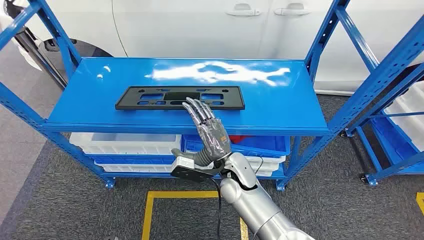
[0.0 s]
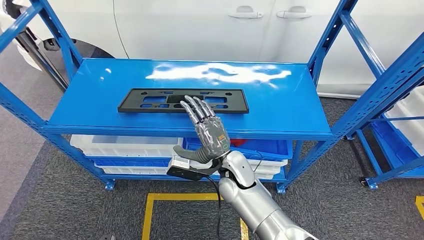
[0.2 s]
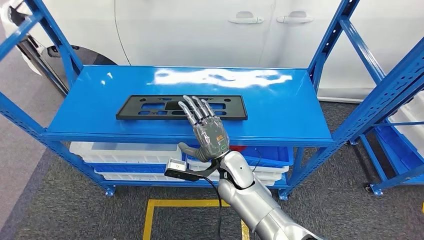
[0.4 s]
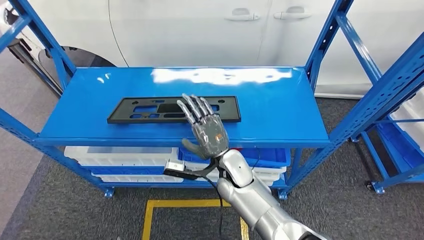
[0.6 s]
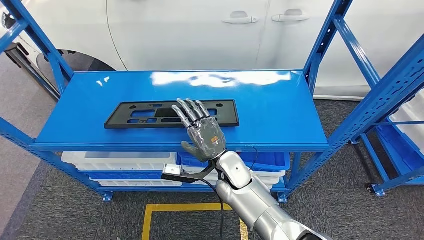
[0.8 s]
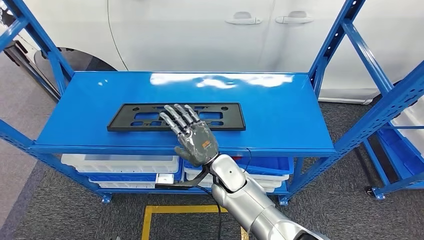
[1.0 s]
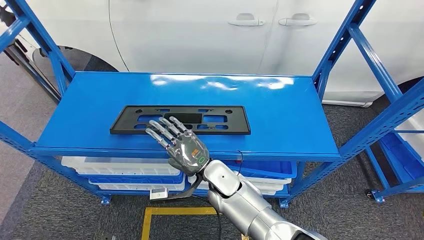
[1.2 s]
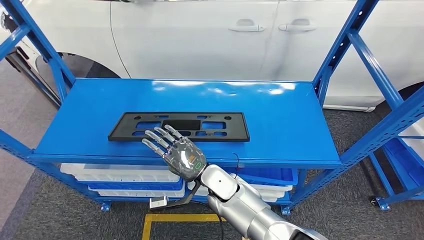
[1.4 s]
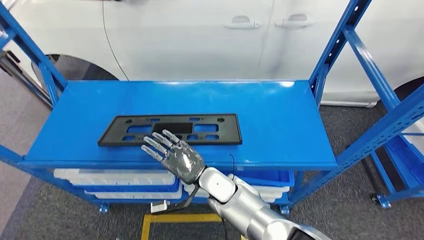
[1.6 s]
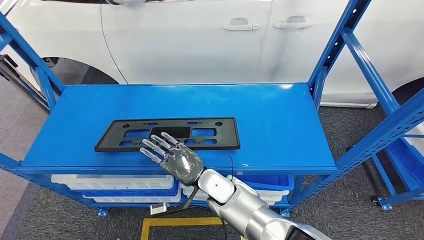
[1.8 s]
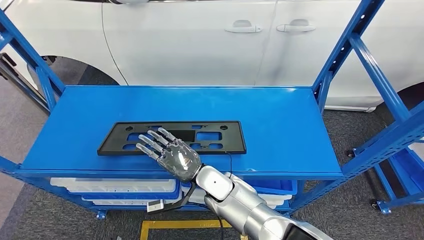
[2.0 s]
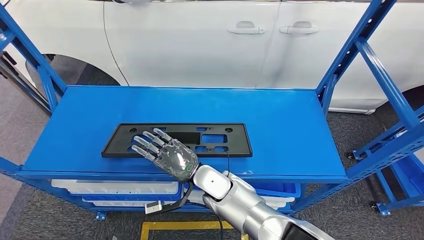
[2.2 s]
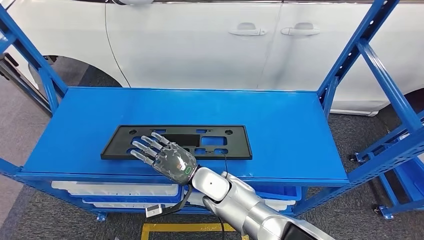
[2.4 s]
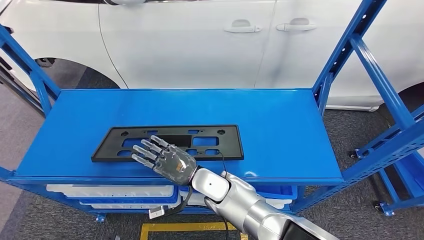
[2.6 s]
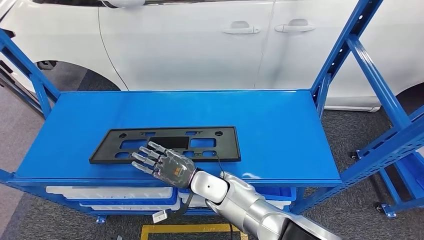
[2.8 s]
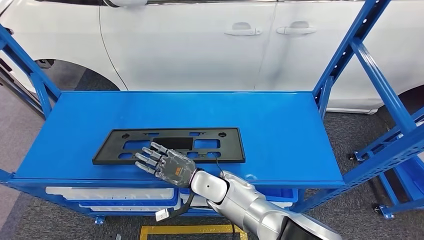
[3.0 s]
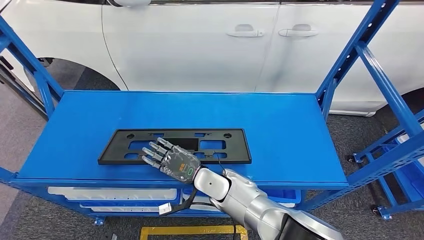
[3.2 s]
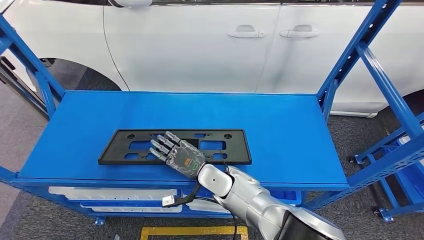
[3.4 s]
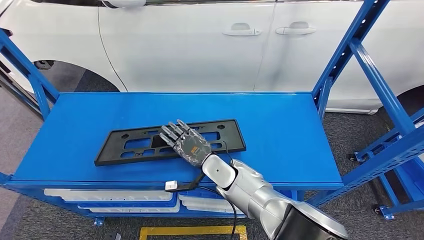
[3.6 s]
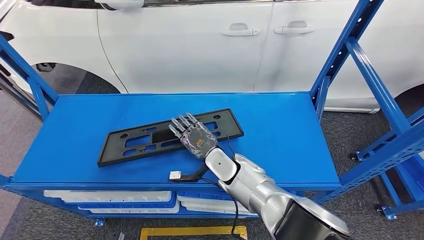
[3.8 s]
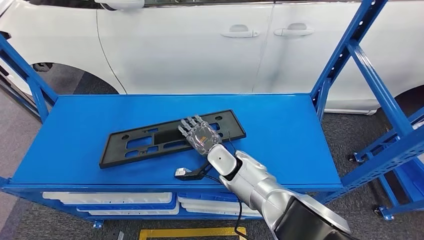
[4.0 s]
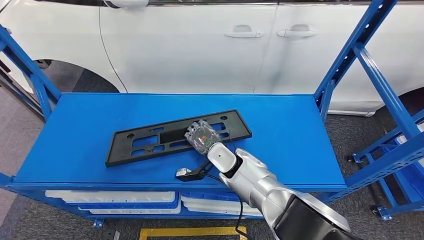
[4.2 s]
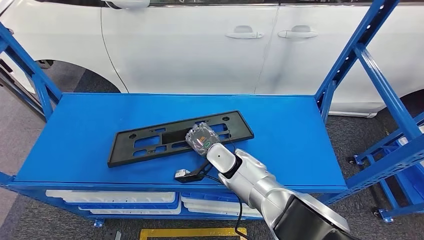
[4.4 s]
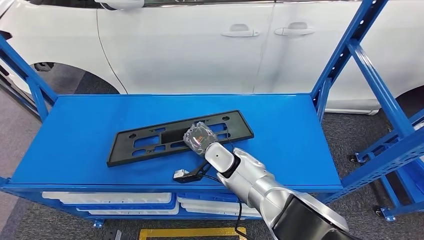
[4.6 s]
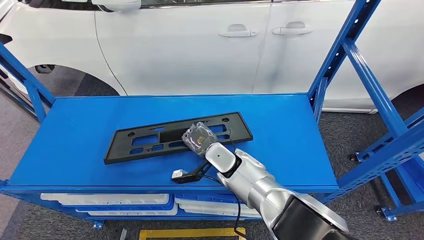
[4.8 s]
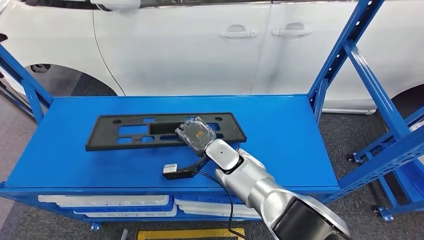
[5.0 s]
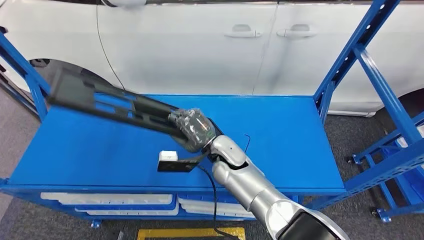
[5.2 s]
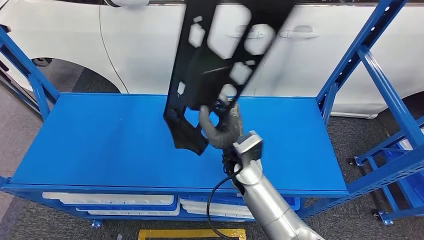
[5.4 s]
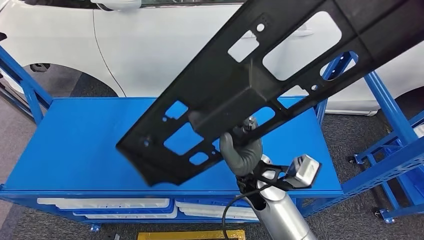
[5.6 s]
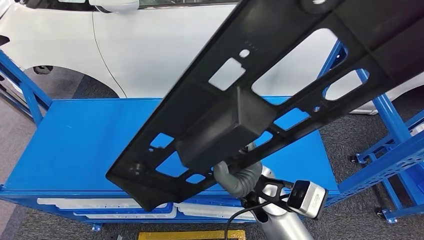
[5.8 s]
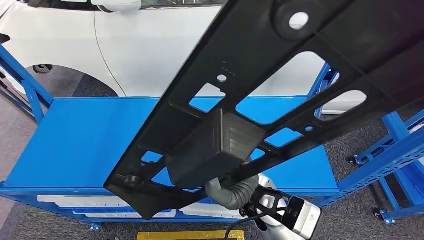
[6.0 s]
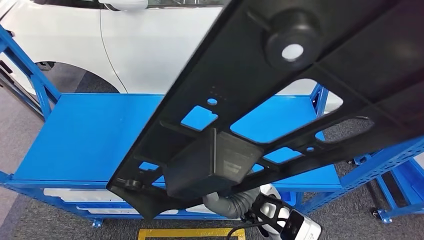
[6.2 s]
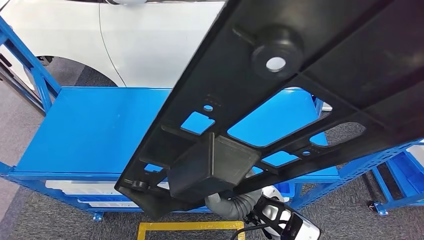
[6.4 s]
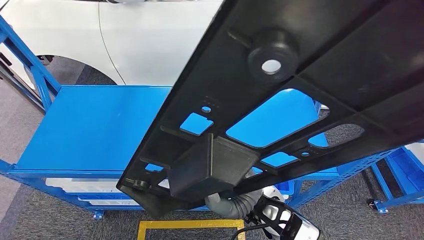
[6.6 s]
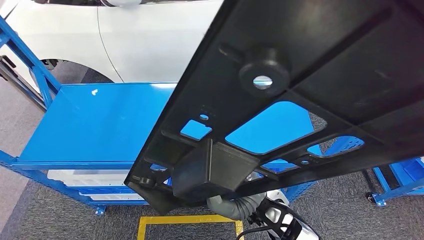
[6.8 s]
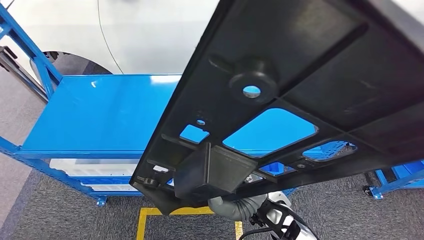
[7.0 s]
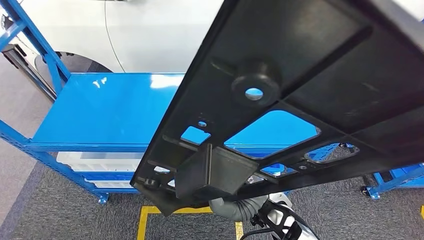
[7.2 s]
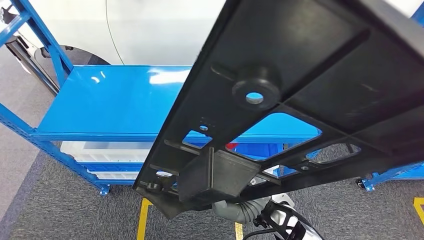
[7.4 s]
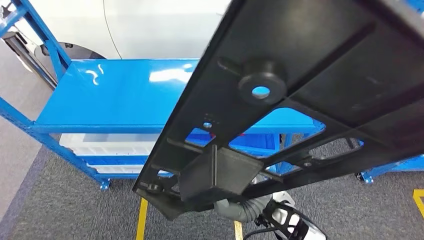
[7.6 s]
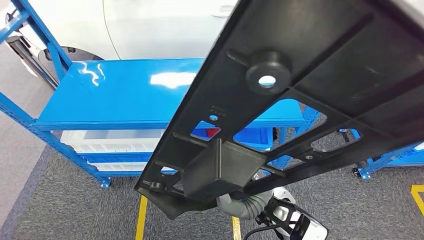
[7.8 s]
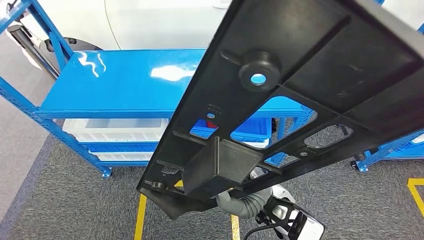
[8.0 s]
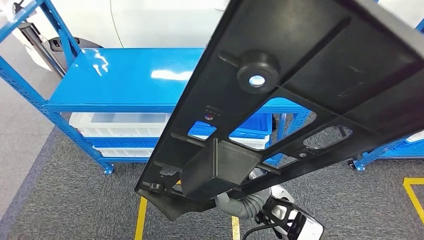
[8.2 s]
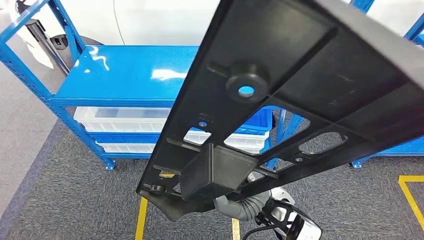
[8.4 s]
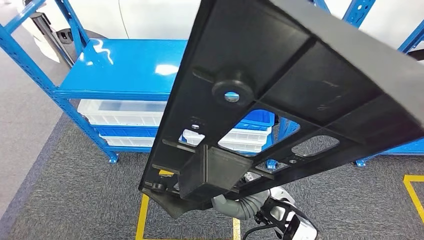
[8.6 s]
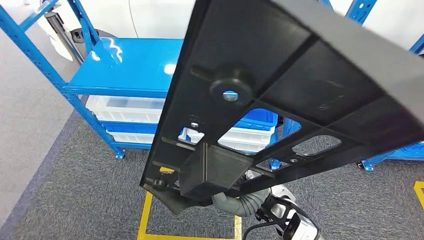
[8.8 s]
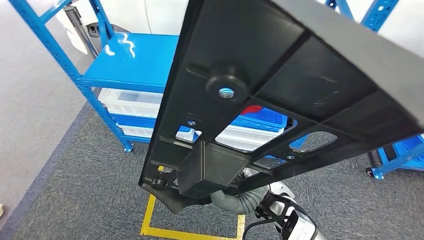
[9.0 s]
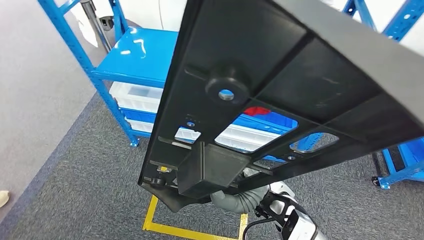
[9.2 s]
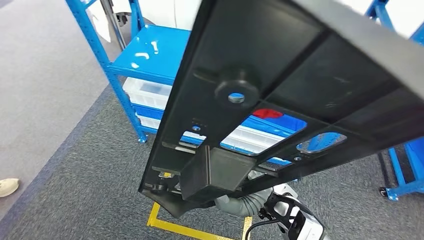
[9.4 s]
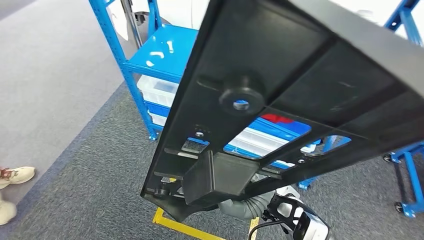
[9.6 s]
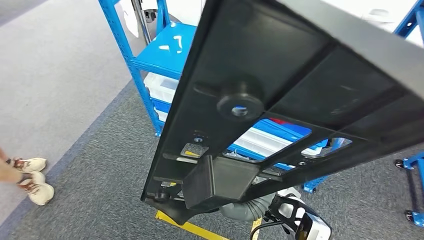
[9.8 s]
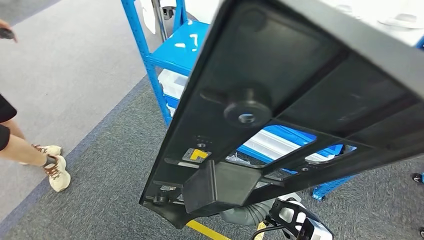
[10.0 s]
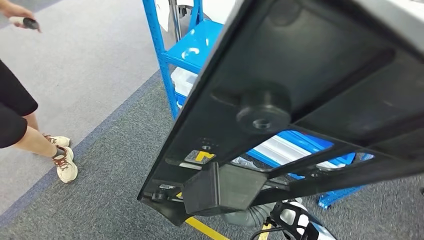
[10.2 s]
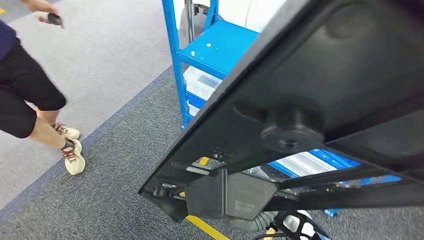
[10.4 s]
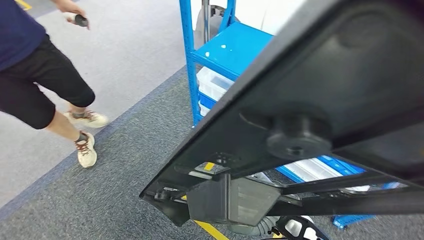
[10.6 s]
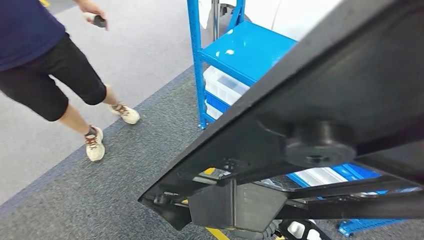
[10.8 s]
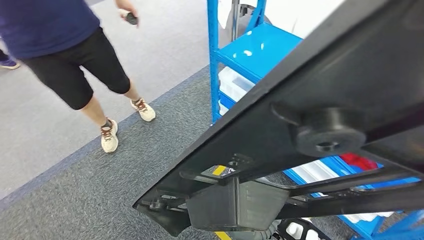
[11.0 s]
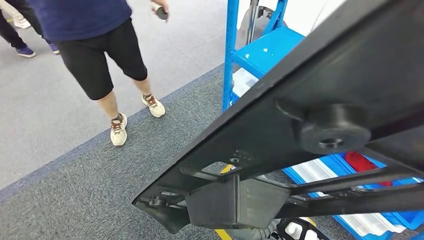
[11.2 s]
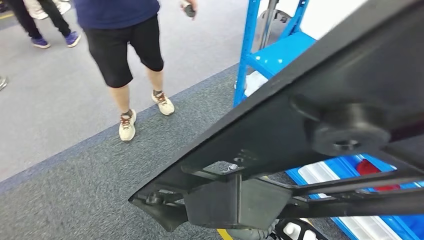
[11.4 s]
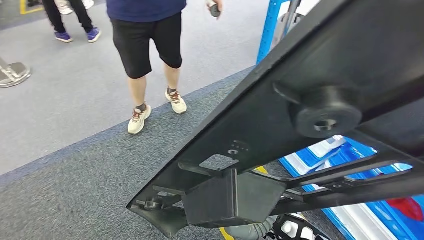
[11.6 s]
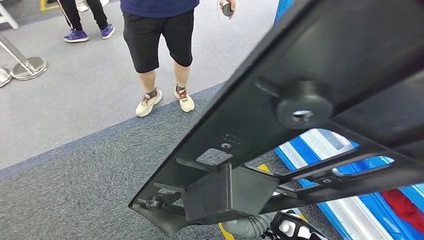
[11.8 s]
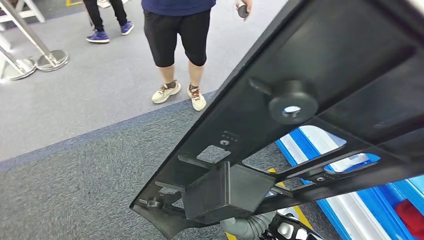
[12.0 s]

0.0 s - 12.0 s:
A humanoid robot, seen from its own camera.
Step, 0.0 s - 6.6 s: Pick up the large material from the shelf.

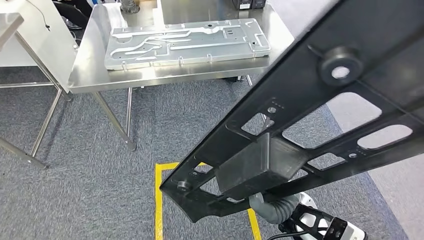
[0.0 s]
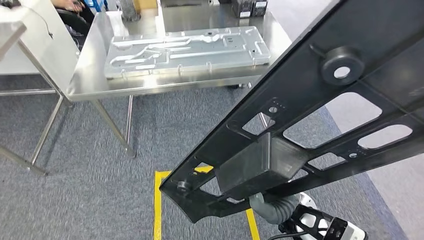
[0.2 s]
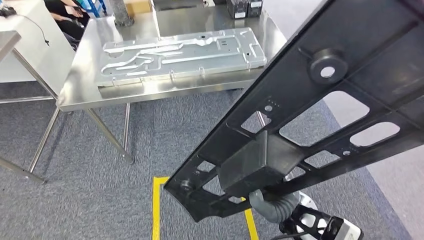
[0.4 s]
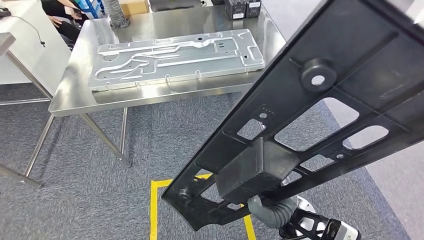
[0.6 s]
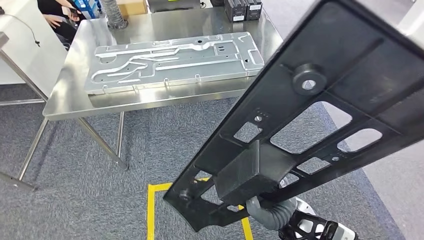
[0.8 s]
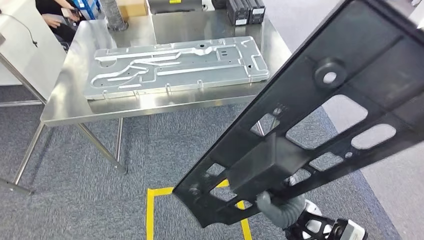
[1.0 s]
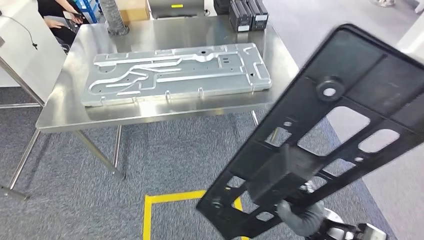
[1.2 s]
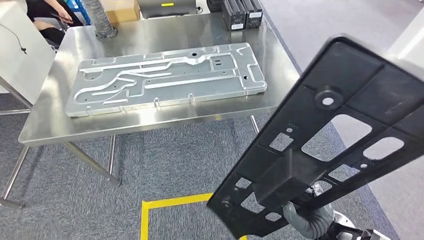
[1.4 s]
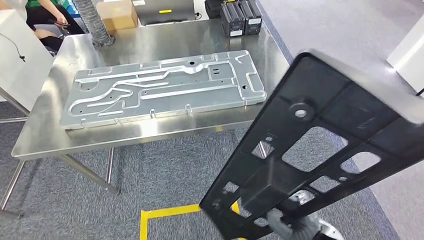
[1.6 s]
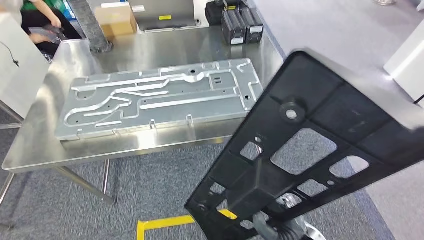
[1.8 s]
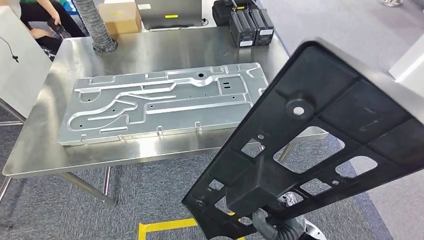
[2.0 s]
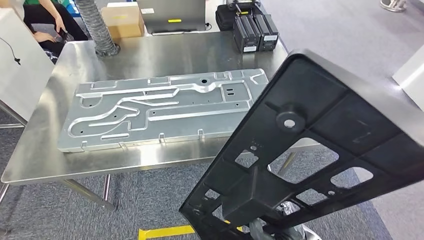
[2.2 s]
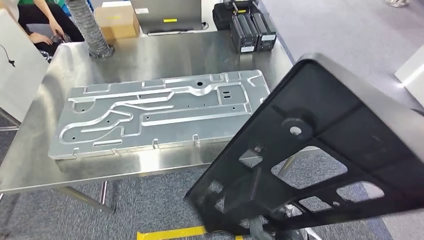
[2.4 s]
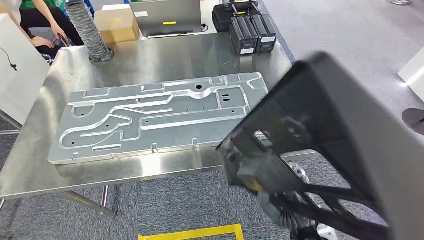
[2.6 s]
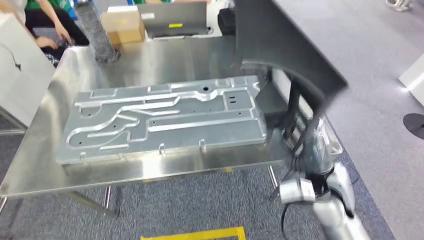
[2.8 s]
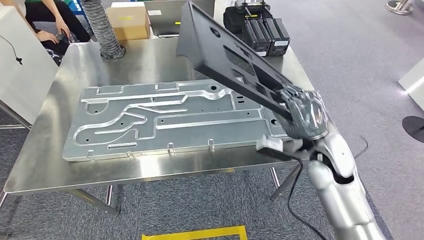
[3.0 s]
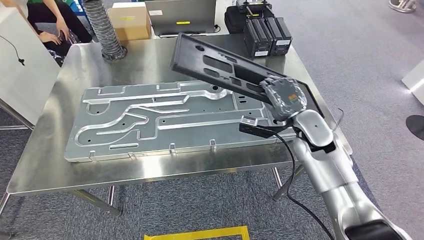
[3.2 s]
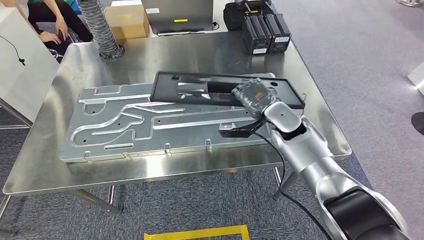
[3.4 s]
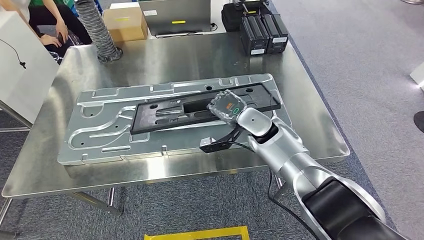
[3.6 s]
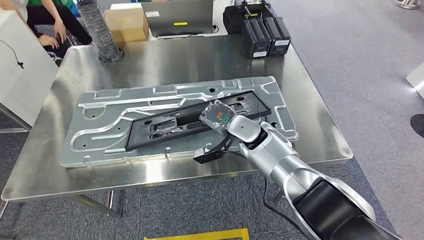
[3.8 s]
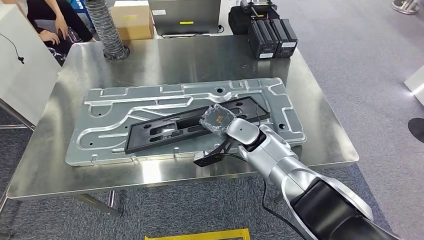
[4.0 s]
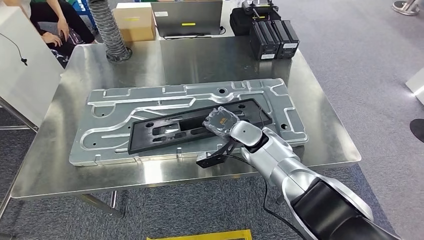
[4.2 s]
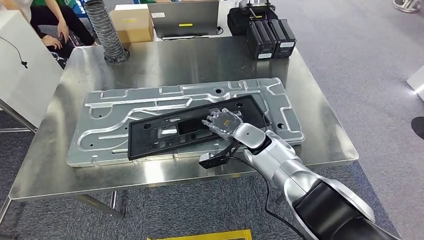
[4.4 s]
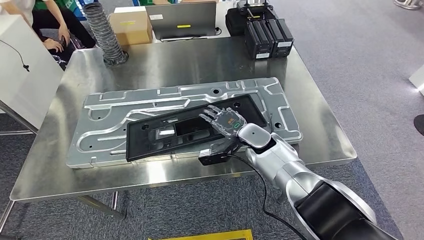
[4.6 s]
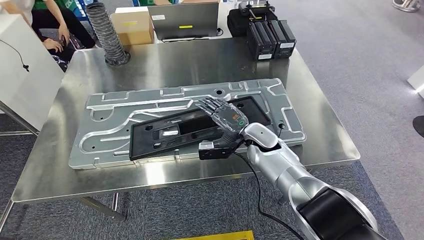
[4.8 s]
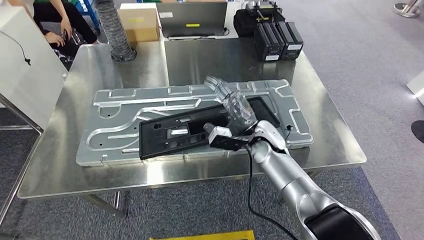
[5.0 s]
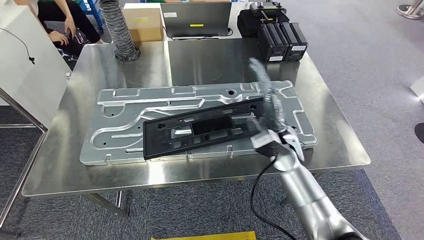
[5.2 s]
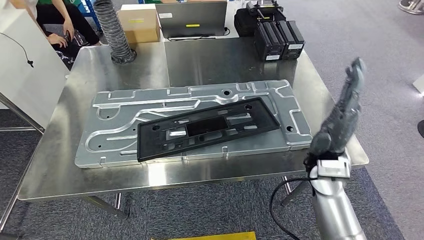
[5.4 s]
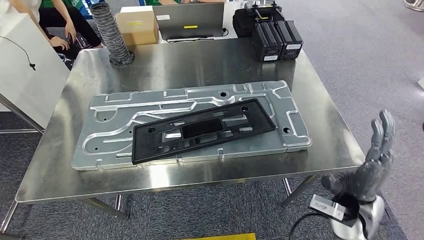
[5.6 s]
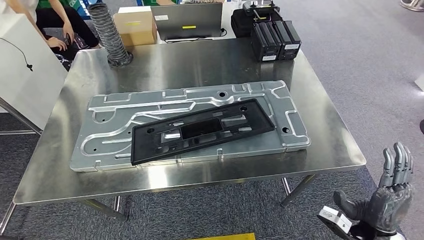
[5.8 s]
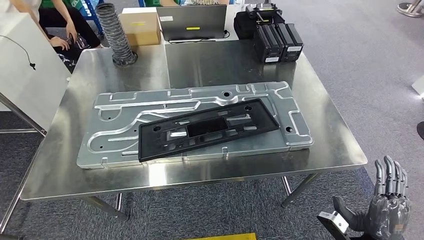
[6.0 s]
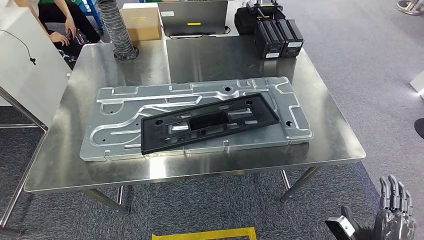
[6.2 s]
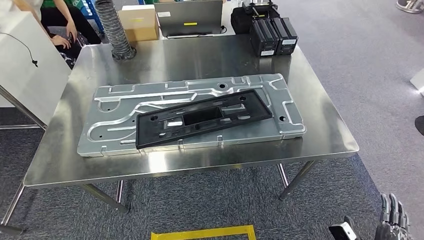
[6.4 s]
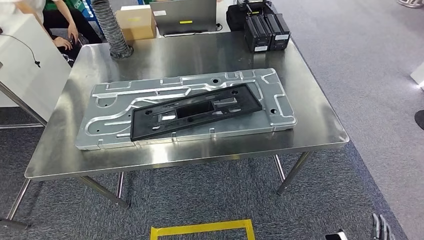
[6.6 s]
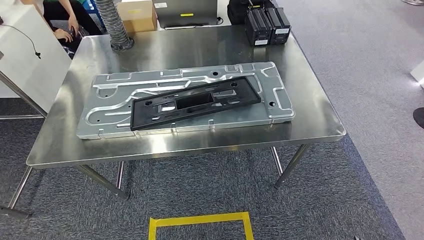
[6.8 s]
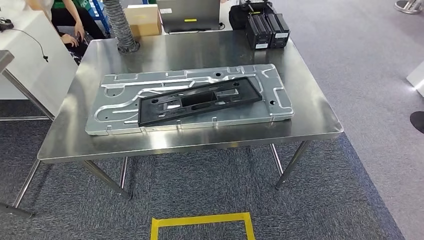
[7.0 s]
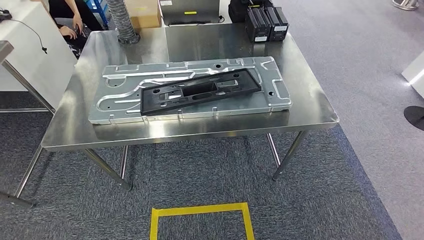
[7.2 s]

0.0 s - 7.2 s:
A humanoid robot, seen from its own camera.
Step, 0.0 s - 2.8 s: Move the large material to the workbench.
Step, 3.0 s - 5.2 s: Insert the large material into the corresponding slot on the workbench.
